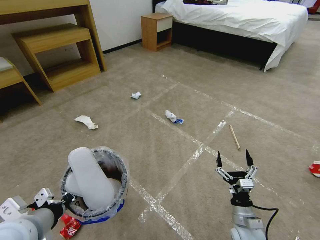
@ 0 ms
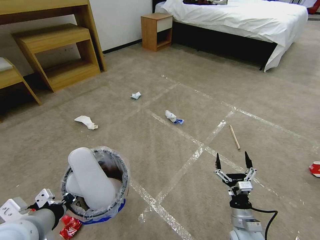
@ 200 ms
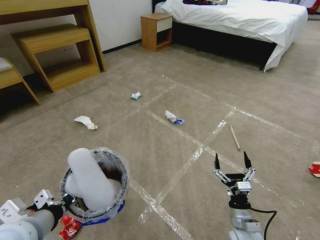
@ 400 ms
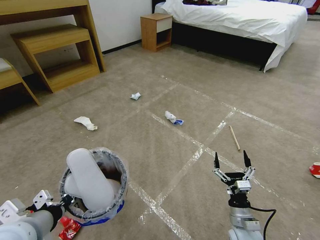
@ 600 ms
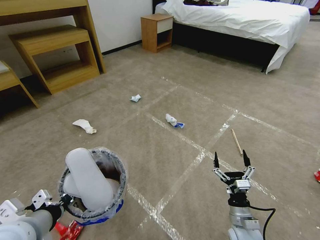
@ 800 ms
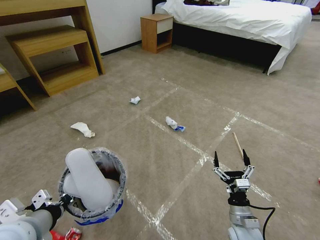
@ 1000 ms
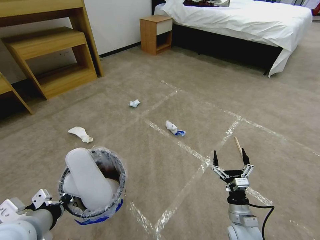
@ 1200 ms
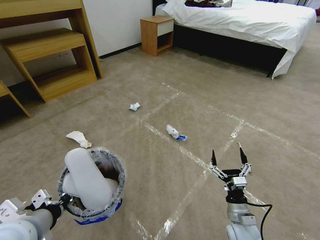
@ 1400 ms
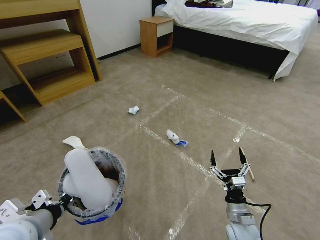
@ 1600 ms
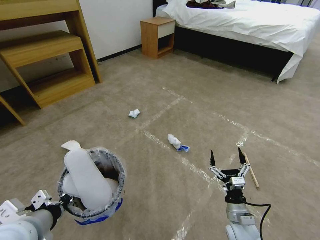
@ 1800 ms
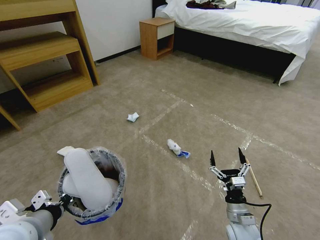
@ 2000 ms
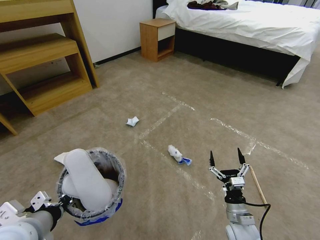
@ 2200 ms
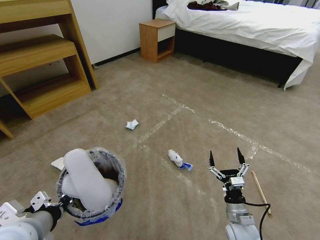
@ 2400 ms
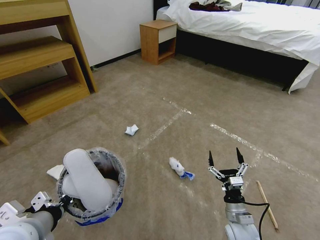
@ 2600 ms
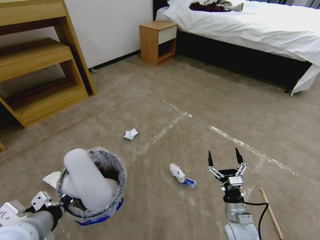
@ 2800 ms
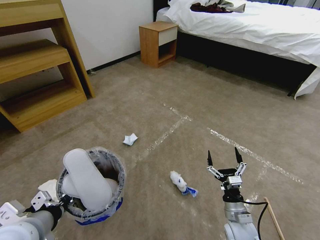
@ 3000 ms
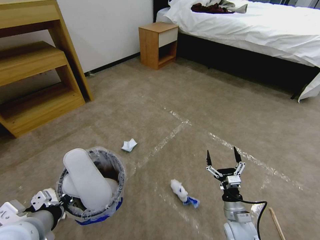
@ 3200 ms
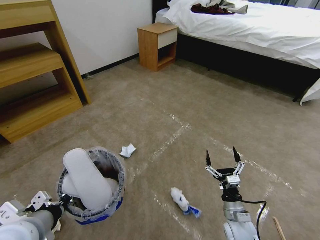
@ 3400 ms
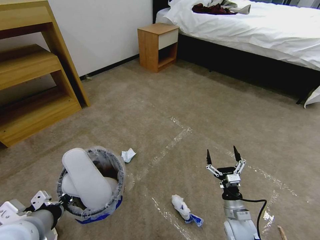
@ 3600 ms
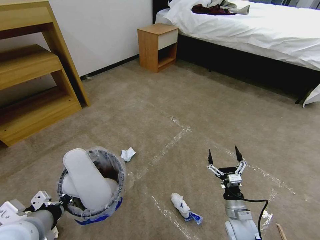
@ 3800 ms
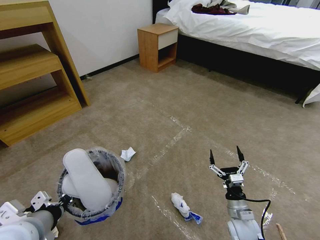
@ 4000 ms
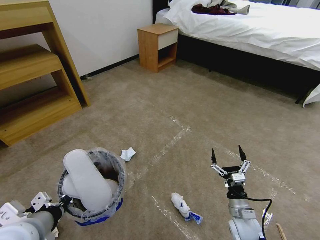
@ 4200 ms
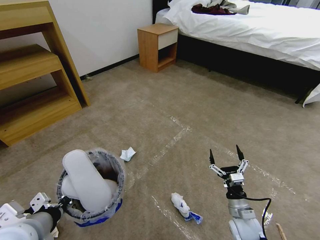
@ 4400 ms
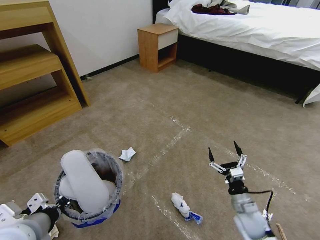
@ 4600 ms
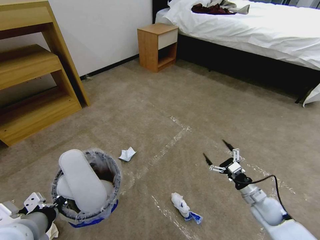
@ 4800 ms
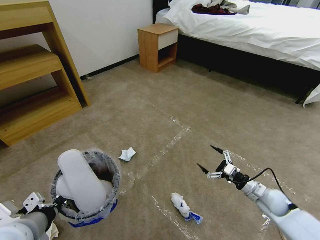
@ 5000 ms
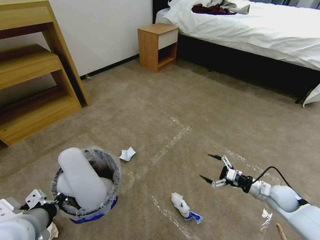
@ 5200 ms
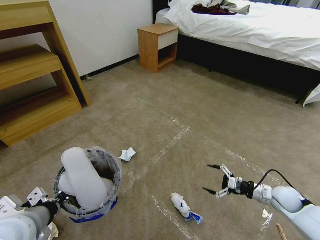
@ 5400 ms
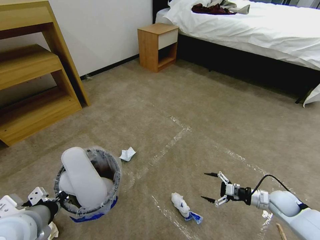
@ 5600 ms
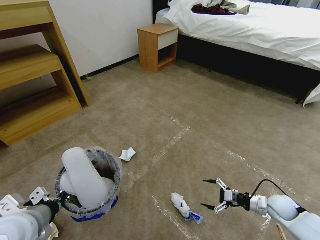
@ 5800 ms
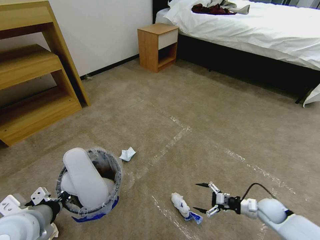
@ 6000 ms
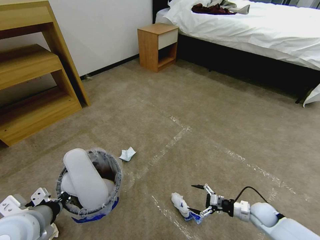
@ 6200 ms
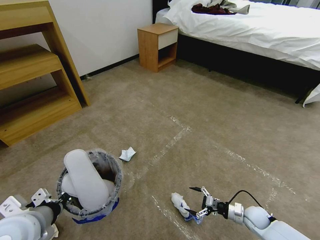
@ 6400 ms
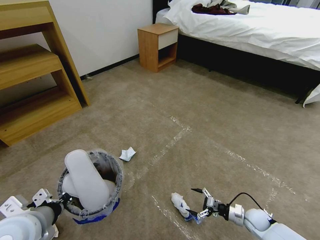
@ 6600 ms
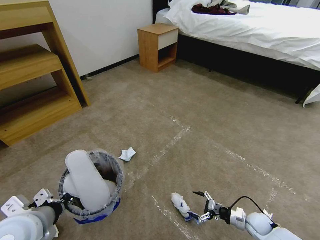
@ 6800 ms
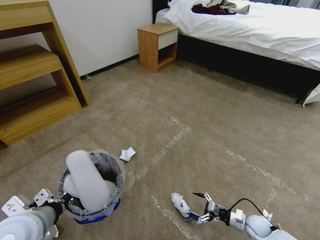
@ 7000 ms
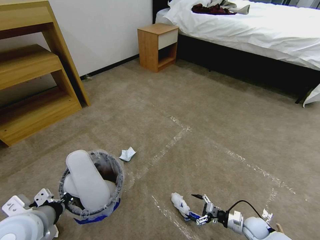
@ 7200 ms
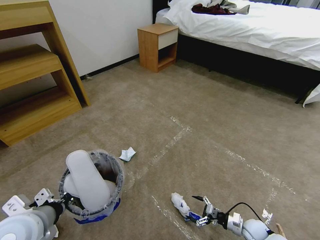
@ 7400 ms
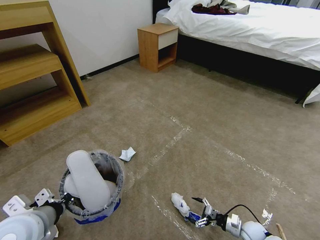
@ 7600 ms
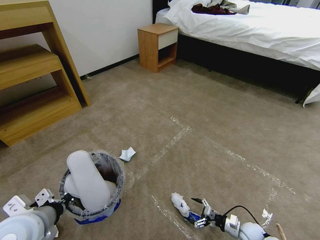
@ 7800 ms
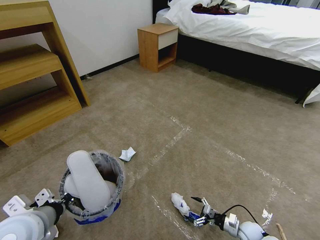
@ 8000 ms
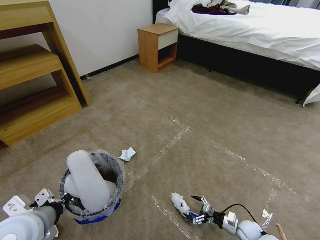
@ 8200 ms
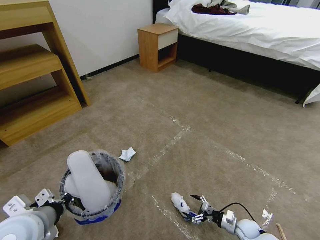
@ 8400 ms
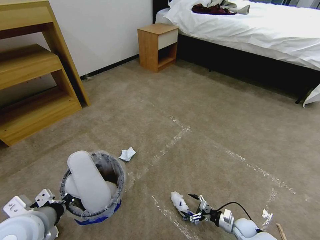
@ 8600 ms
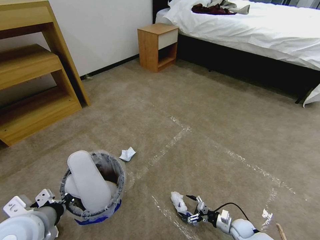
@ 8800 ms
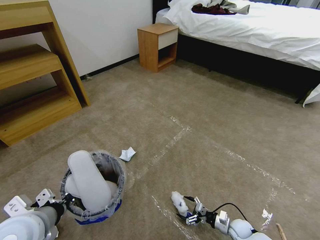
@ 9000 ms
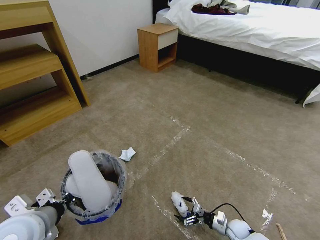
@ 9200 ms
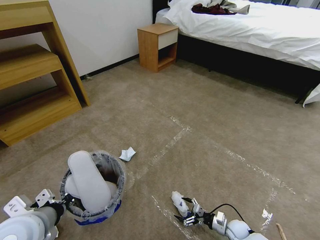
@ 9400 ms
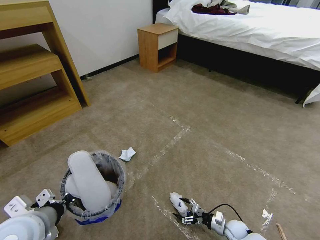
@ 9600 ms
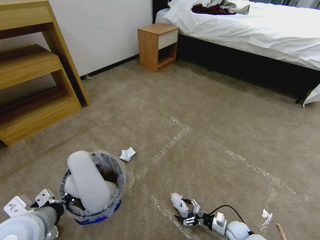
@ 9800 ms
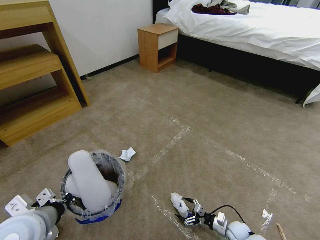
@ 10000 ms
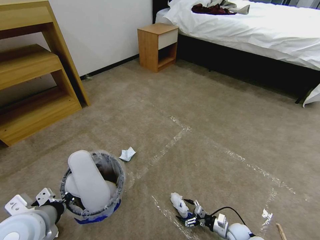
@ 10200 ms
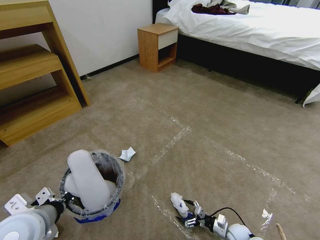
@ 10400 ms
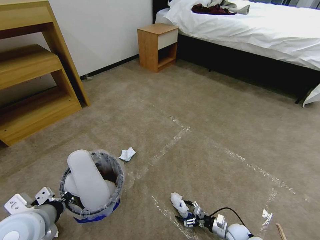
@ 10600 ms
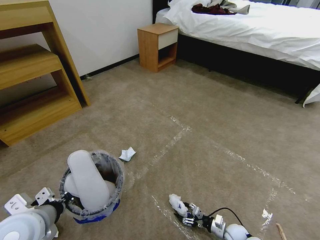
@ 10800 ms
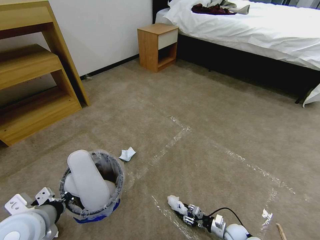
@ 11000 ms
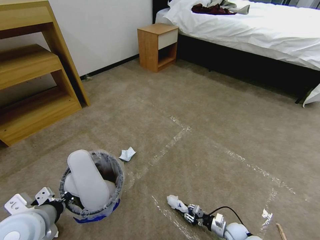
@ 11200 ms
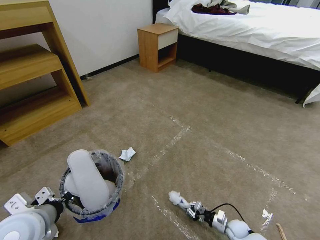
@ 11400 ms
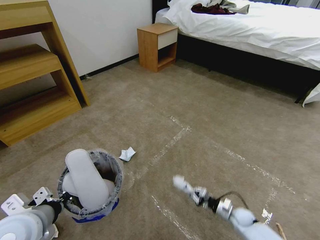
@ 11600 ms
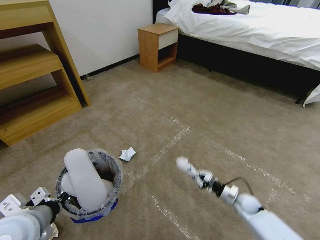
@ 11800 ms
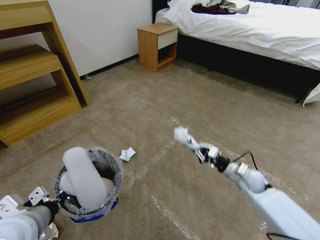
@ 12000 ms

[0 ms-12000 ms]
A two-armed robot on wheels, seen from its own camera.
Task of the whole recording: Pick up the trash bin and place the garbage on the floor into it.
4400 ms to 6000 ms: The right gripper is displaced to the right and forward by some 15 cm.
6000 ms to 7600 ms: The right gripper shifts about 15 cm downward and backward.
7600 ms to 9000 ms: The grippers stay close to where they were, moving slightly.
9000 ms to 10400 ms: The grippers stay close to where they were, moving slightly.
10400 ms to 12000 ms: The right gripper is displaced upward and forward by some 30 cm, and closes.

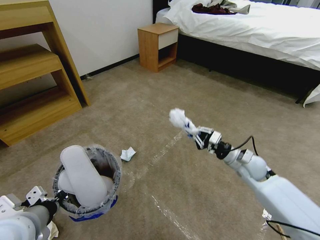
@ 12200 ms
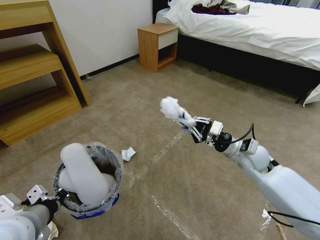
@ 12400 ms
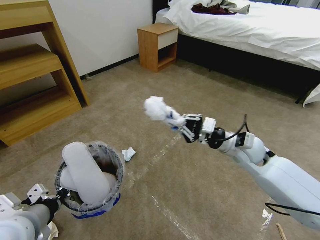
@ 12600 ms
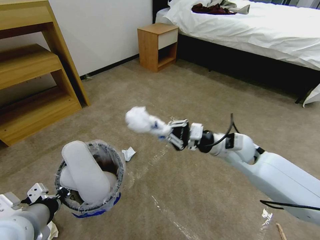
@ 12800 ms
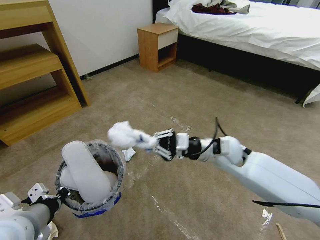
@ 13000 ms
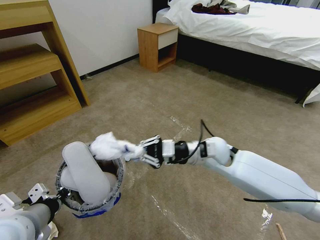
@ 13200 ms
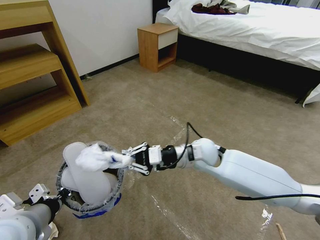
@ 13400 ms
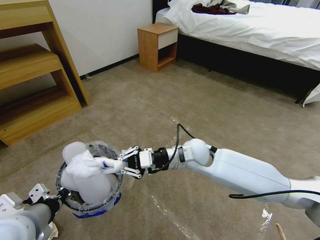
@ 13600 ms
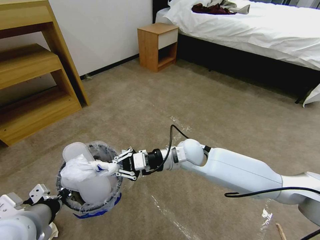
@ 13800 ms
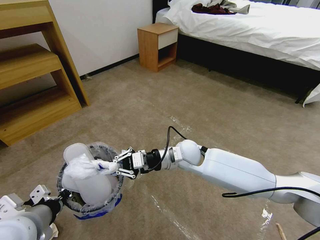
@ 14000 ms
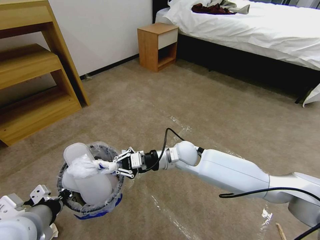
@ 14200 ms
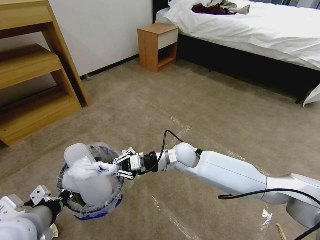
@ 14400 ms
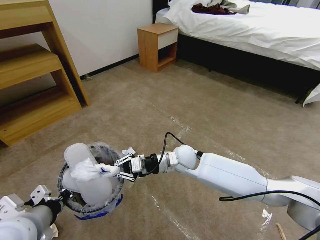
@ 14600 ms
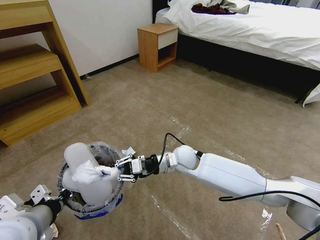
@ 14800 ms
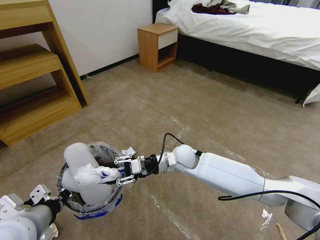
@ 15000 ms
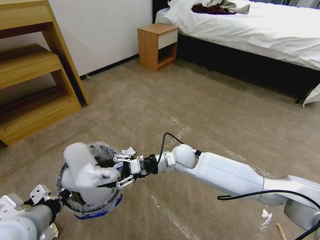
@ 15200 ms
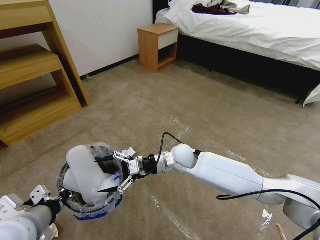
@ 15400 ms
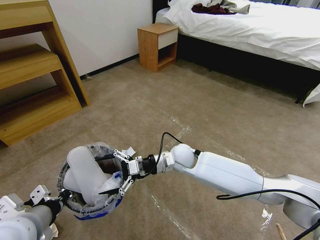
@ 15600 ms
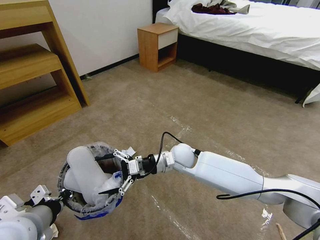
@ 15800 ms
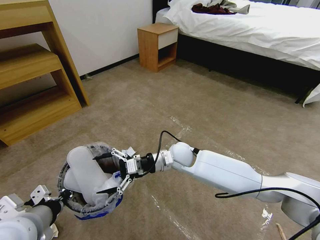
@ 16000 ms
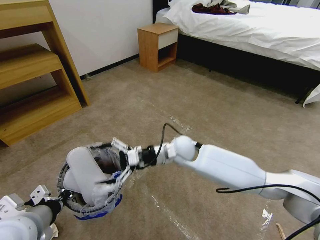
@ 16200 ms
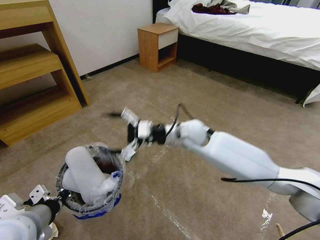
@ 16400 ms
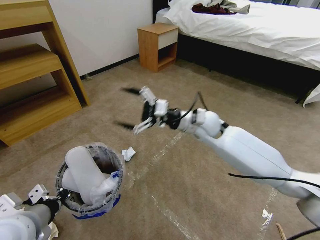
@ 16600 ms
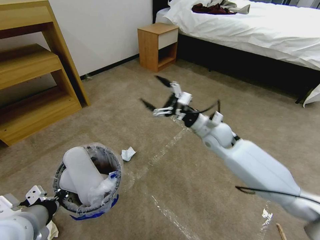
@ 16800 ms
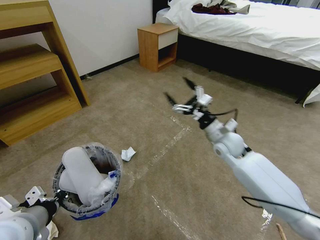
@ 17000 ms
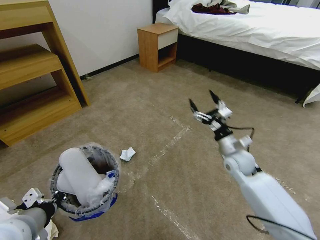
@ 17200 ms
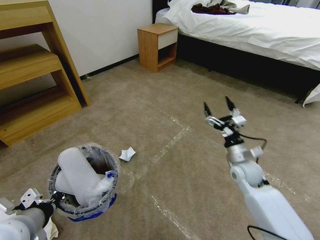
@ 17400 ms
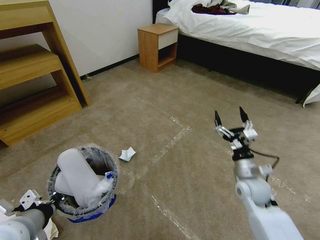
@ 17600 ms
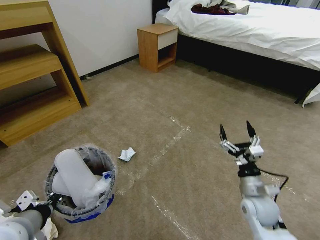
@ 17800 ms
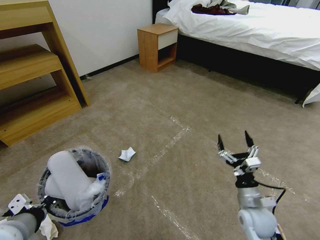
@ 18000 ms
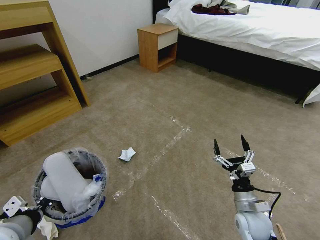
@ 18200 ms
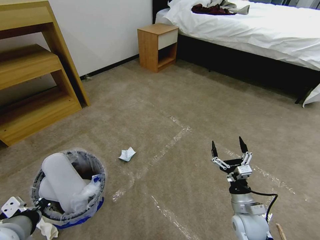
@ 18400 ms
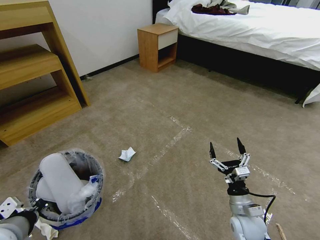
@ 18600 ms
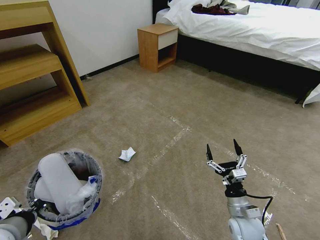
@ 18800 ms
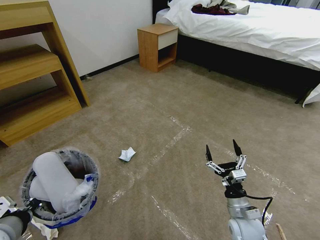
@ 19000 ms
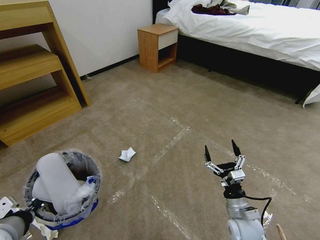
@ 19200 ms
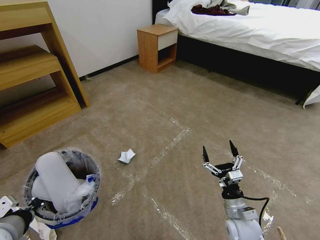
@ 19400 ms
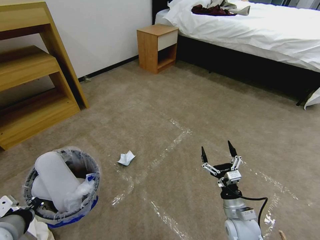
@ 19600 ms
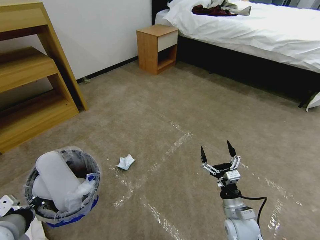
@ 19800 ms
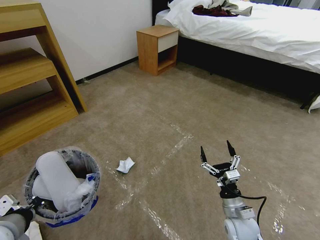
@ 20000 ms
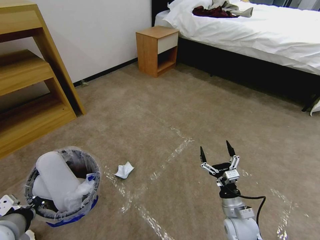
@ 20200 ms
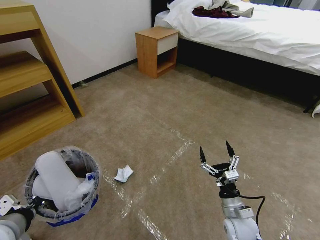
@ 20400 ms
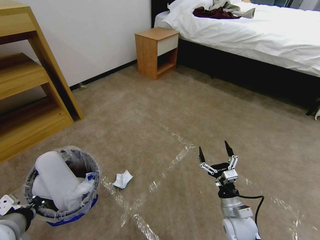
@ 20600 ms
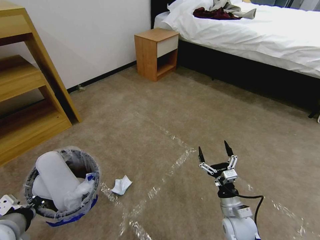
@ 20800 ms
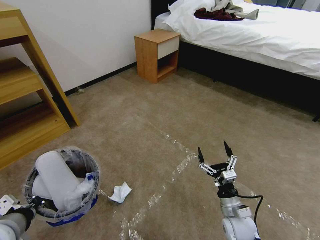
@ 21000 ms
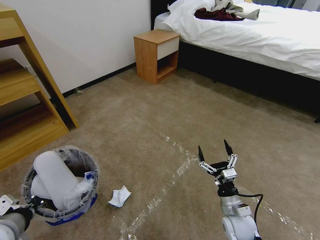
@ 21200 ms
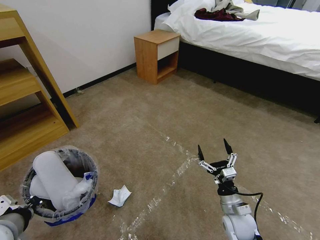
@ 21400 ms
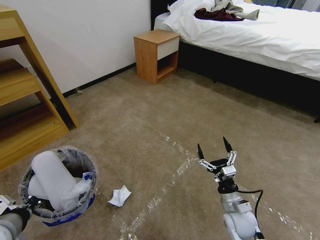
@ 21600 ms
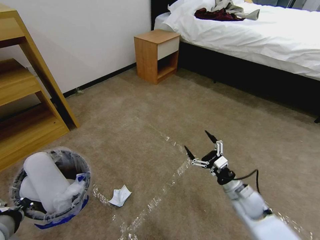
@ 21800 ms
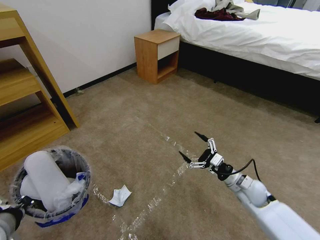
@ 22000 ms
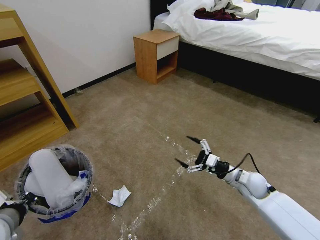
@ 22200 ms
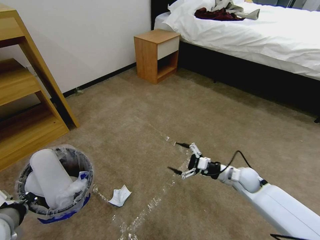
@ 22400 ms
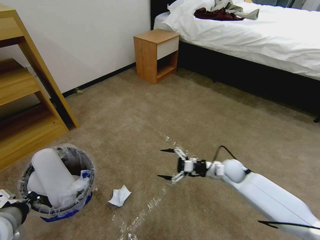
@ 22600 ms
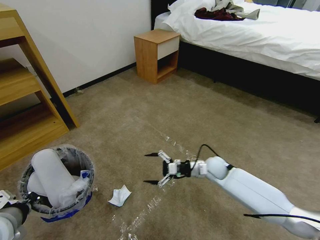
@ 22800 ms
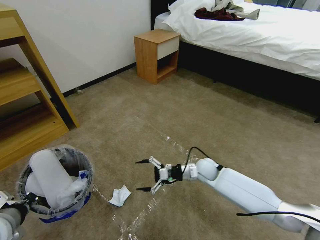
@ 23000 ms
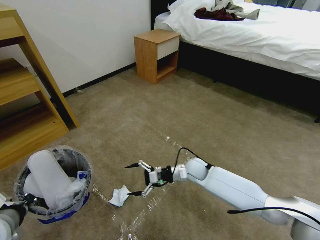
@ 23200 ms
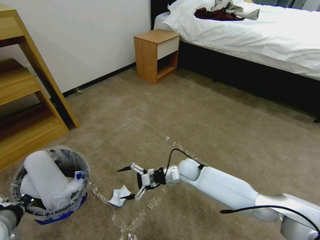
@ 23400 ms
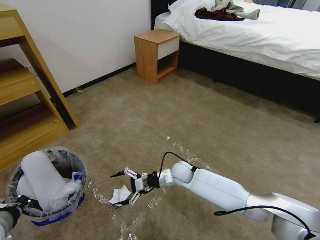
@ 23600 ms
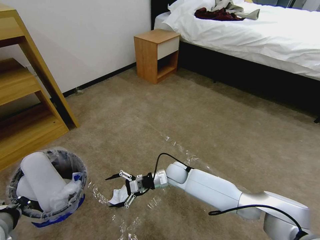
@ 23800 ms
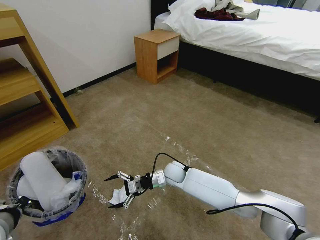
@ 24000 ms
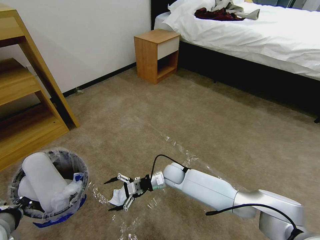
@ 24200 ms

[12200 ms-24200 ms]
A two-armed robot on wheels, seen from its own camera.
Task of the whole recording: Pick up the trash bin and place the garbage on the floor into it.
12200 ms to 13800 ms: The right gripper heads to the left, covering approximately 25 cm.
13800 ms to 15200 ms: The right gripper is displaced downward by roughly 5 cm, and opens its fingers.
15200 ms to 16600 ms: The right gripper travels upward and to the right by about 15 cm, and opens its fingers.
16600 ms to 18200 ms: The right gripper travels backward, downward and to the right by approximately 35 cm.
18200 ms to 19800 ms: The grippers stay close to where they were, moving slightly.
21200 ms to 22600 ms: The right gripper moves forward, roughly 15 cm.
22600 ms to 24200 ms: The right gripper goes some 25 cm to the left.
